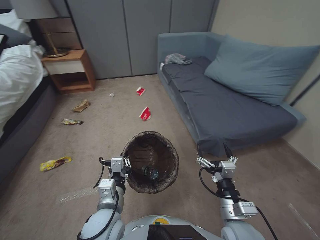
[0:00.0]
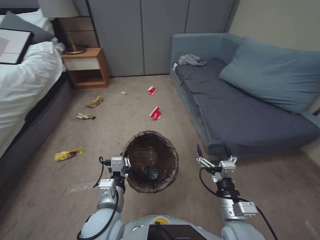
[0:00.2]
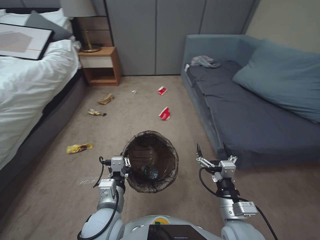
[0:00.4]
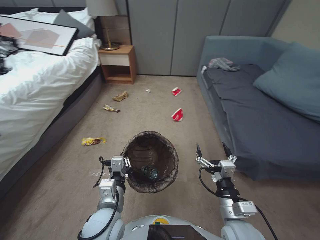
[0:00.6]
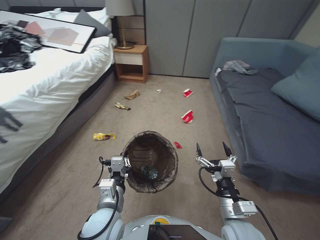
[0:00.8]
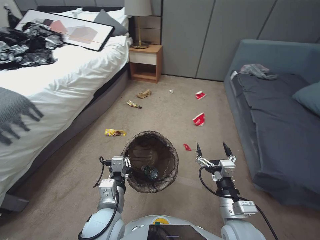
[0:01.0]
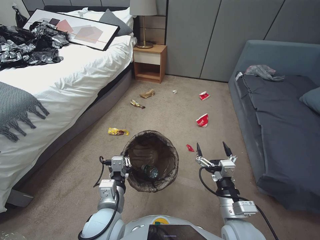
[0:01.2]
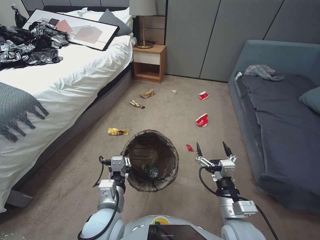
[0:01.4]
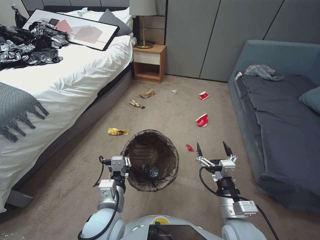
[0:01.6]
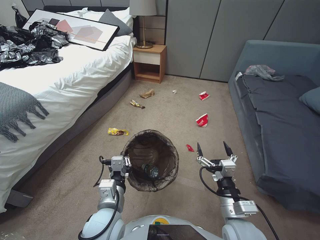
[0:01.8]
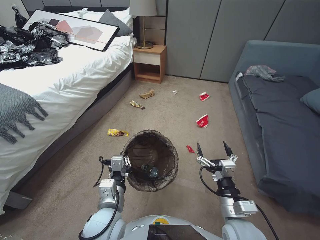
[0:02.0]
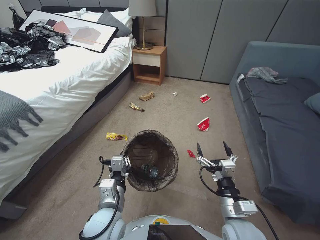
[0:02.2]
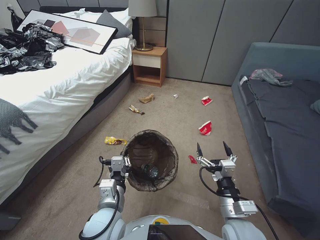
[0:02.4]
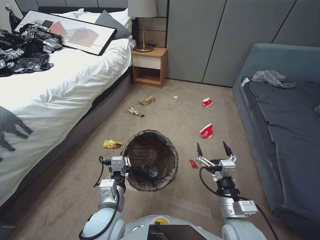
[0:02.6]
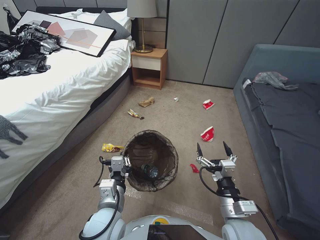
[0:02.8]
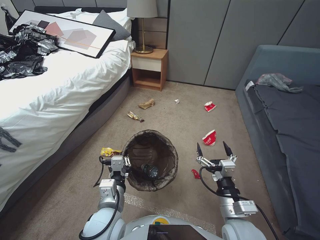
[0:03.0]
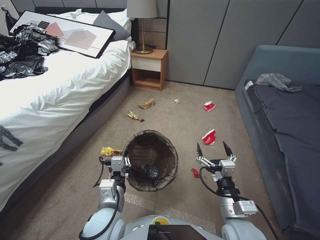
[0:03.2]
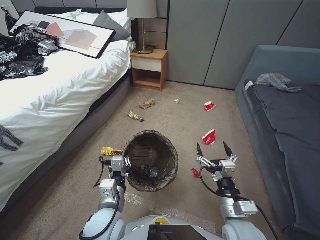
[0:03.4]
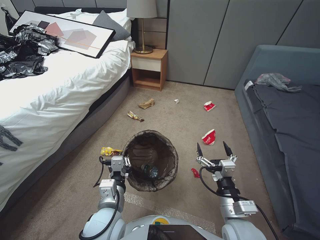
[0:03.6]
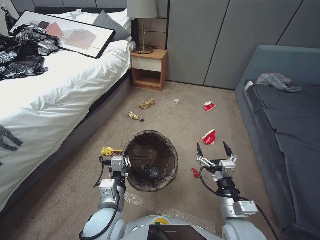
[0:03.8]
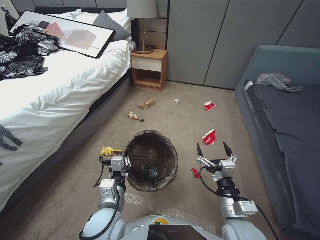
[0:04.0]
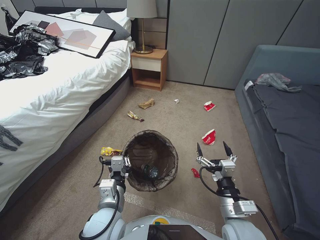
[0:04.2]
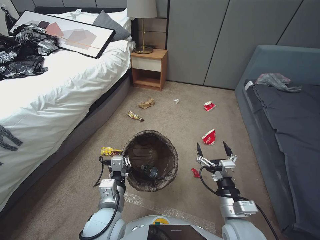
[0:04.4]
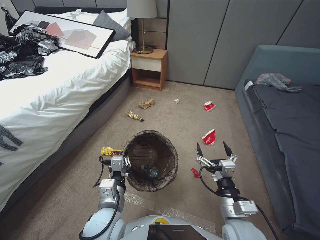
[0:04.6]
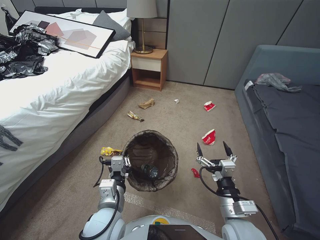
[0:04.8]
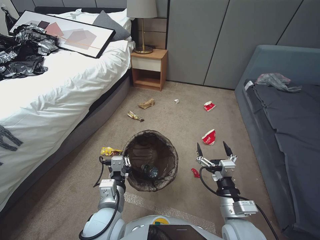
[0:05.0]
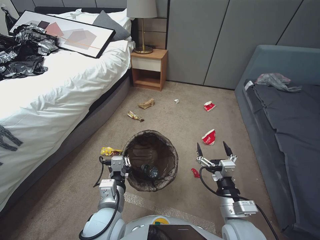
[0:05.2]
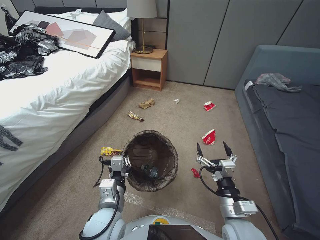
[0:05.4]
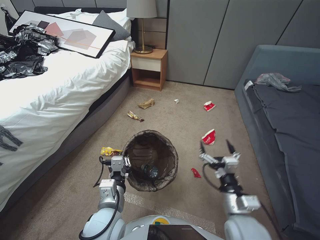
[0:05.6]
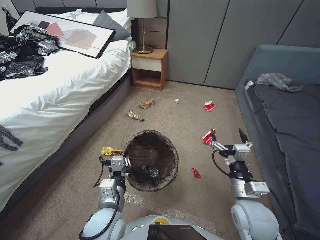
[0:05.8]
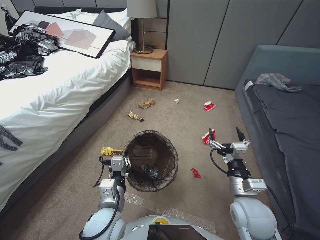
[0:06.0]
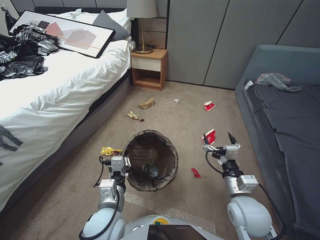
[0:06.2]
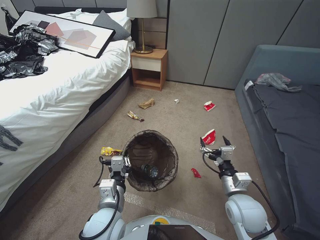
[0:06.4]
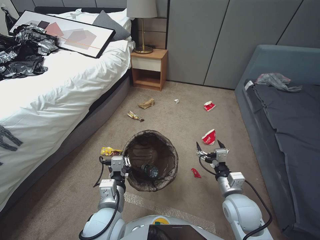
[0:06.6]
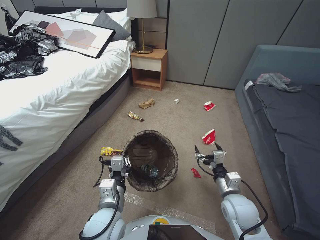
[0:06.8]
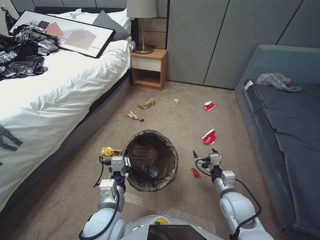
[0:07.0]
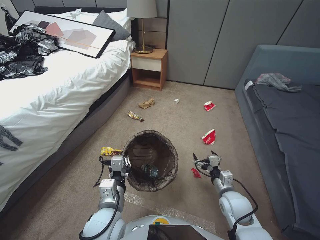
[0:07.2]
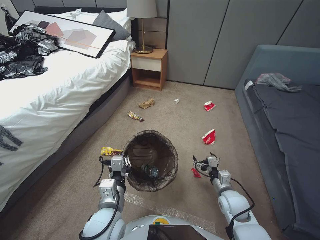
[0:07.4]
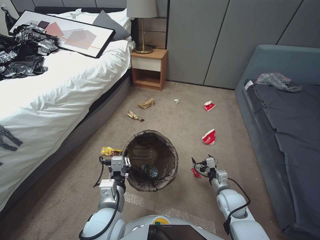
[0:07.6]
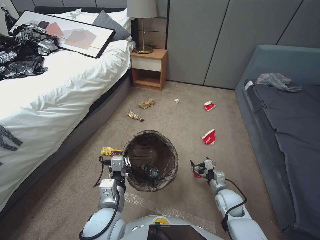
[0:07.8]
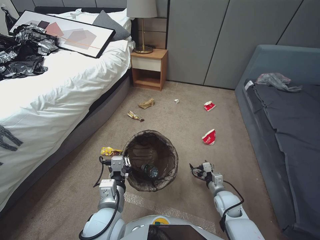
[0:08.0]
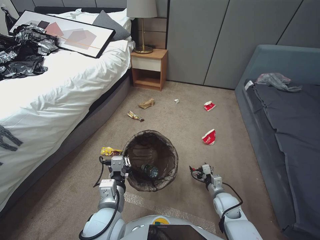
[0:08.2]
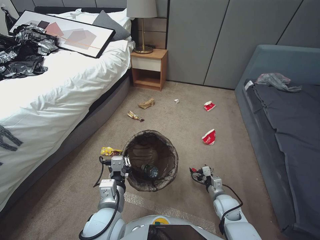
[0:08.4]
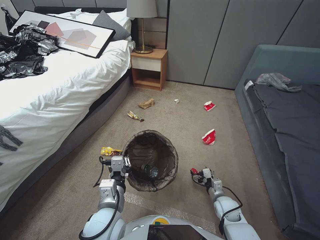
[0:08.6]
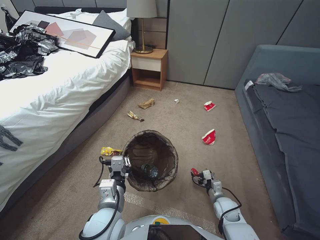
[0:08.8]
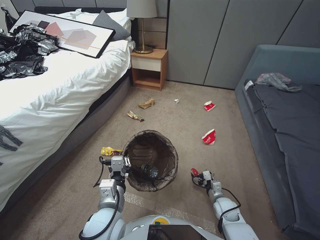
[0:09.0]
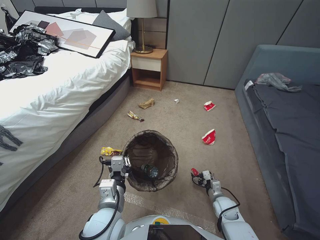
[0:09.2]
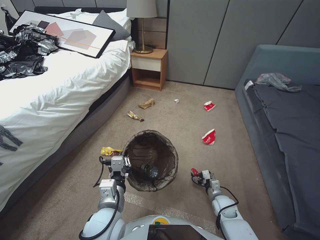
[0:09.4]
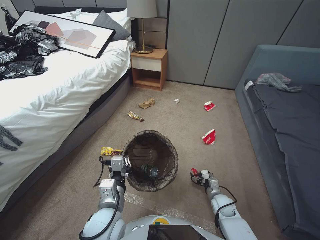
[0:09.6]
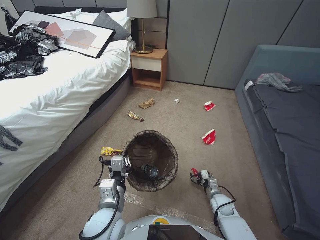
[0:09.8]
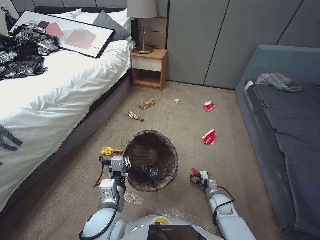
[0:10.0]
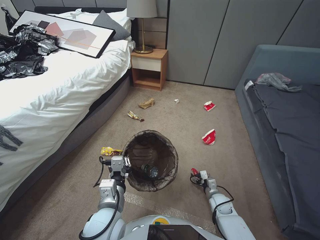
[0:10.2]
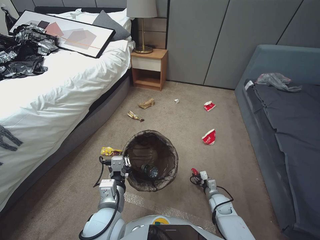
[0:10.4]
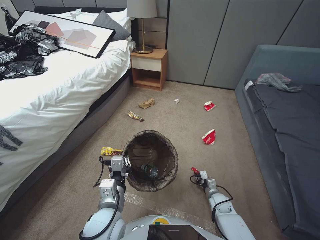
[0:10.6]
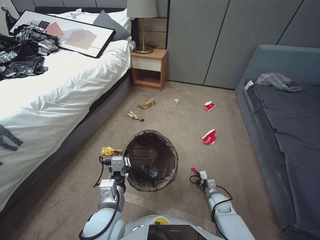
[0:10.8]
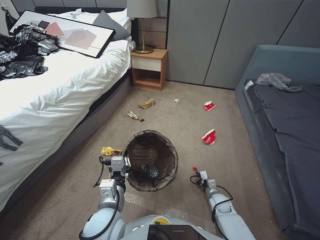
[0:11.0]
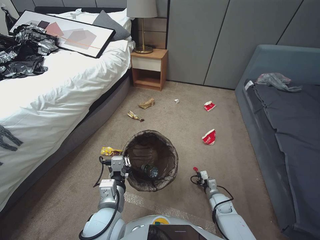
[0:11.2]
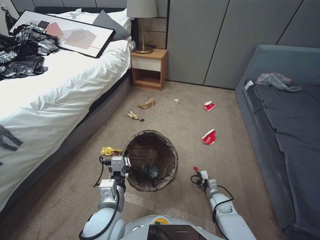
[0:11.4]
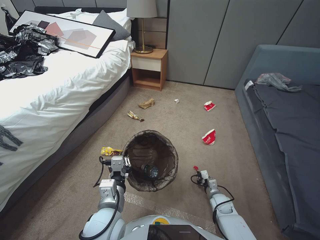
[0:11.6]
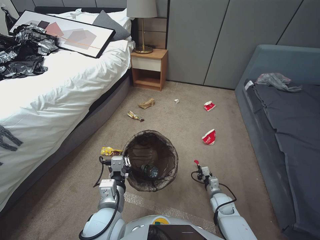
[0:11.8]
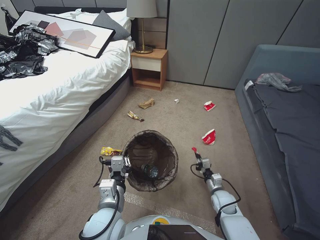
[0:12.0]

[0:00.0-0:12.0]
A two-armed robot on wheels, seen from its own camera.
Task of the whole recording: Pick up the trash bin, then pick up the garbage from the floor and place it into the trash bin.
0:03.0 to 0:04.4: Both grippers stay put.
0:04.4 to 0:06.0: The right gripper changes place by about 5 cm.
0:06.0 to 0:07.6: The right gripper travels downward and forward by roughly 15 cm.
0:07.6 to 0:09.0: The right gripper travels downward by approximately 10 cm.
0:09.0 to 0:10.4: The grippers stay close to where they were, moving slightly.
0:10.4 to 0:12.0: The right gripper closes its fingers.

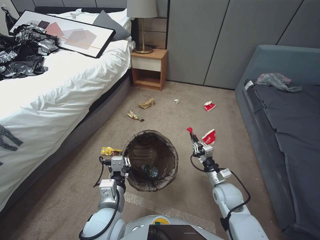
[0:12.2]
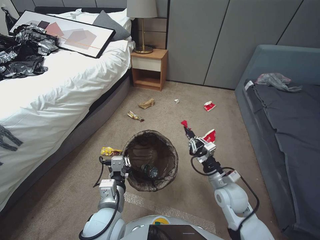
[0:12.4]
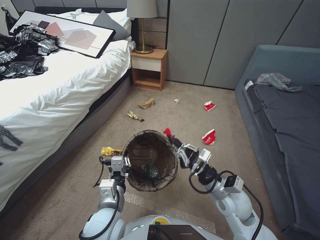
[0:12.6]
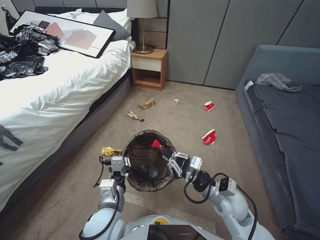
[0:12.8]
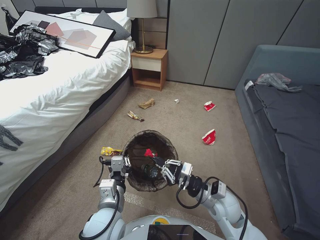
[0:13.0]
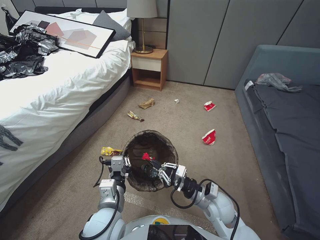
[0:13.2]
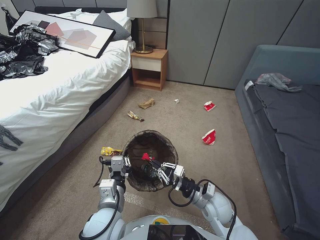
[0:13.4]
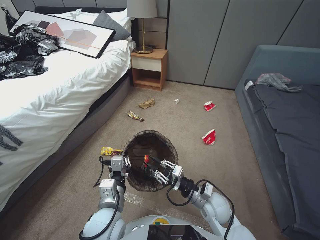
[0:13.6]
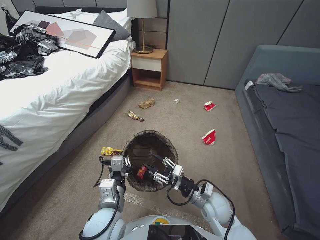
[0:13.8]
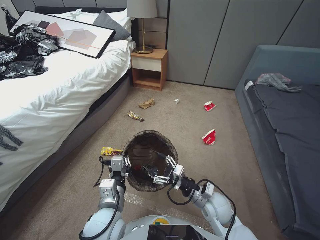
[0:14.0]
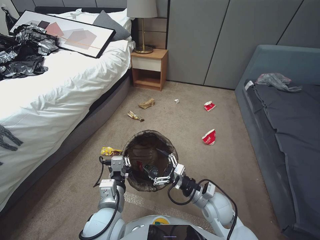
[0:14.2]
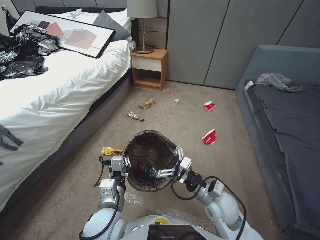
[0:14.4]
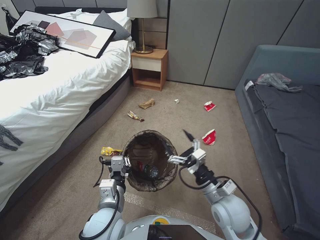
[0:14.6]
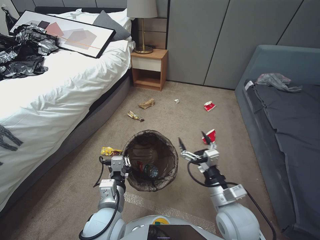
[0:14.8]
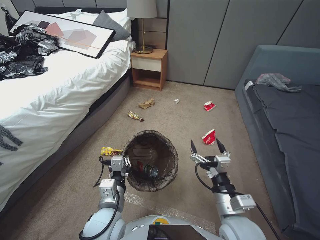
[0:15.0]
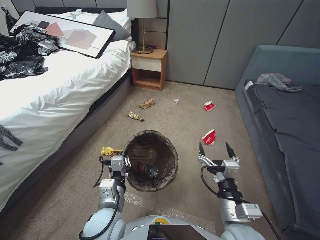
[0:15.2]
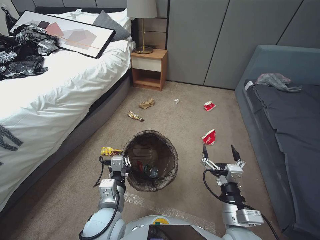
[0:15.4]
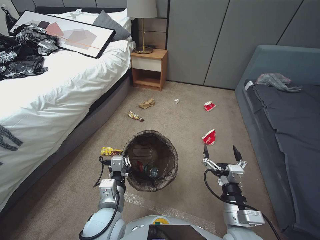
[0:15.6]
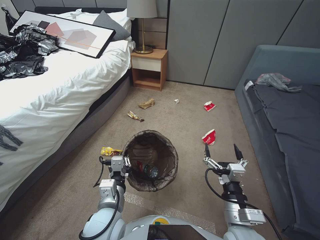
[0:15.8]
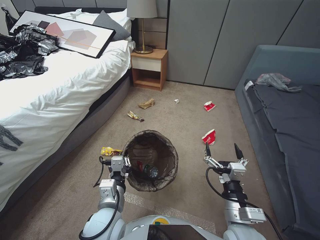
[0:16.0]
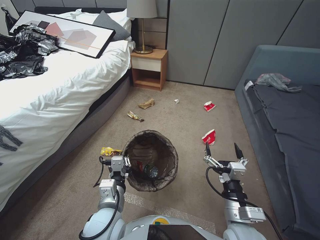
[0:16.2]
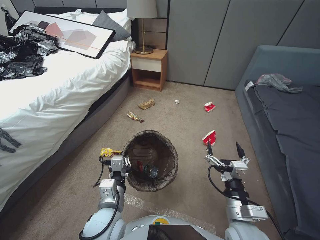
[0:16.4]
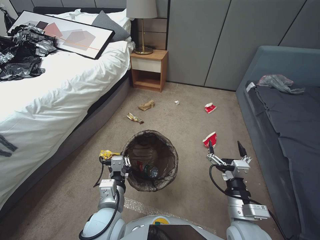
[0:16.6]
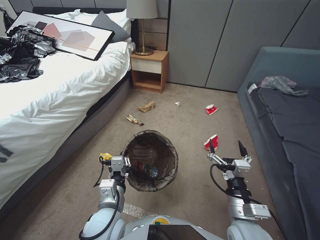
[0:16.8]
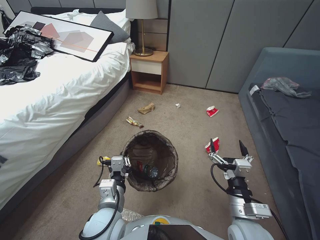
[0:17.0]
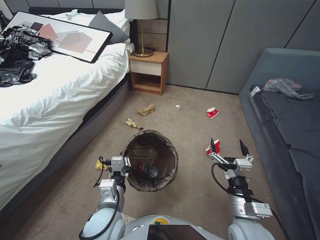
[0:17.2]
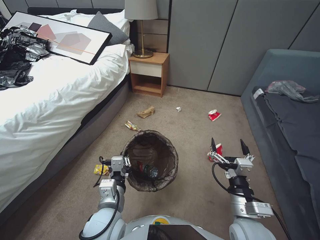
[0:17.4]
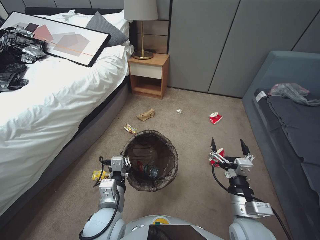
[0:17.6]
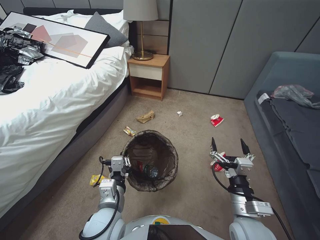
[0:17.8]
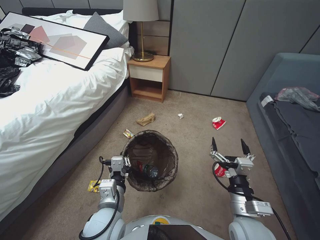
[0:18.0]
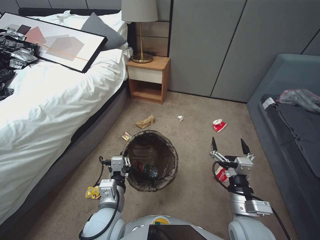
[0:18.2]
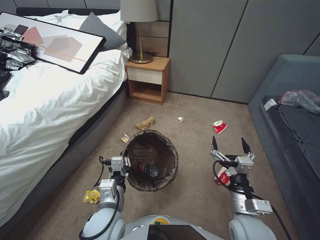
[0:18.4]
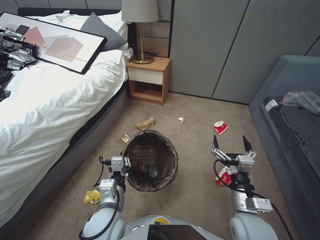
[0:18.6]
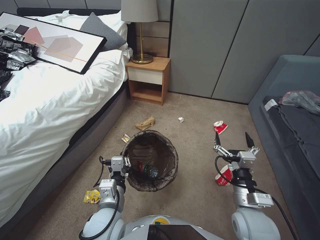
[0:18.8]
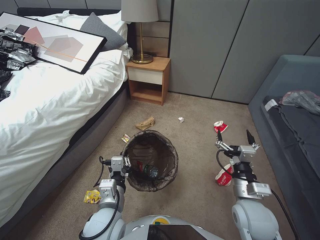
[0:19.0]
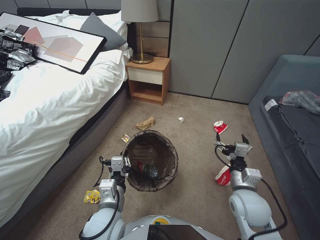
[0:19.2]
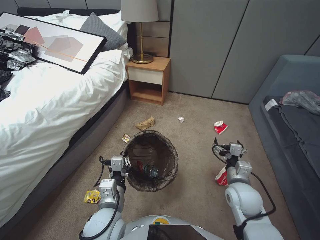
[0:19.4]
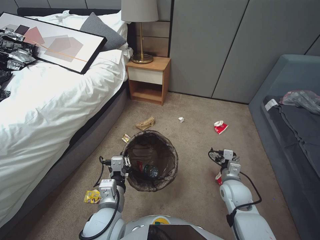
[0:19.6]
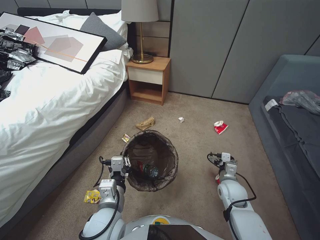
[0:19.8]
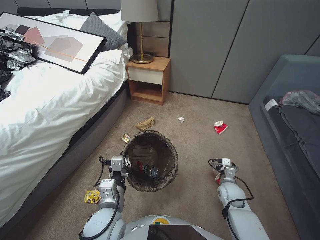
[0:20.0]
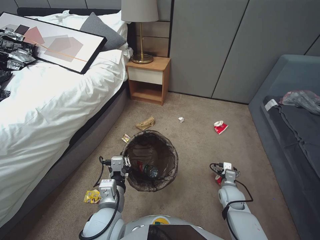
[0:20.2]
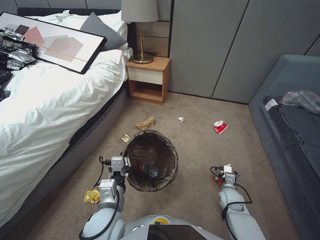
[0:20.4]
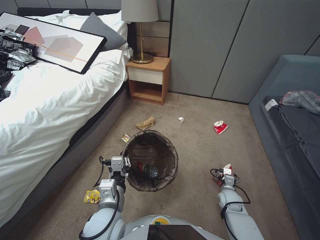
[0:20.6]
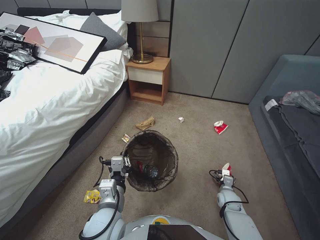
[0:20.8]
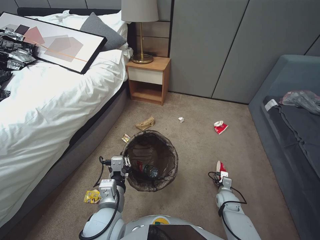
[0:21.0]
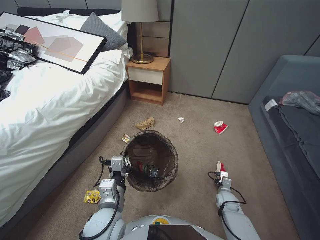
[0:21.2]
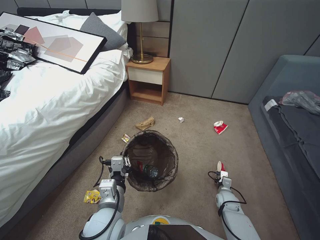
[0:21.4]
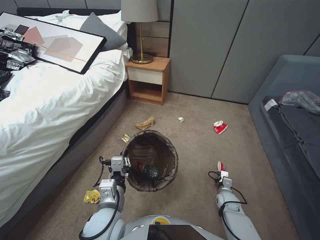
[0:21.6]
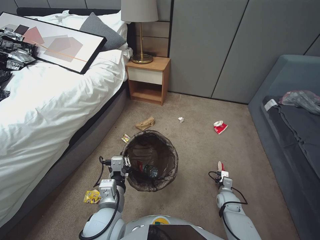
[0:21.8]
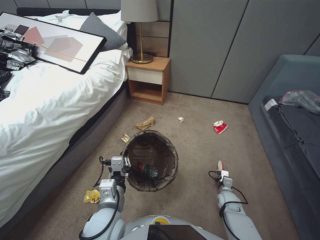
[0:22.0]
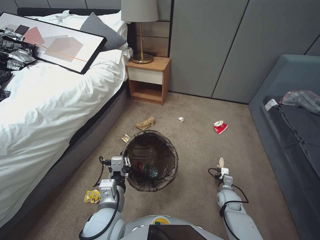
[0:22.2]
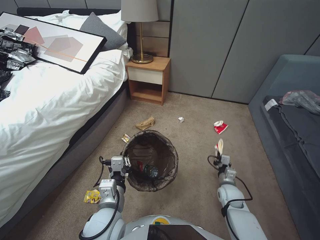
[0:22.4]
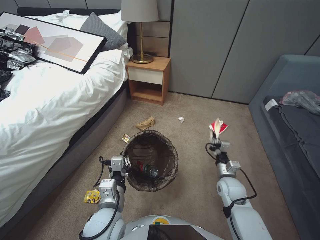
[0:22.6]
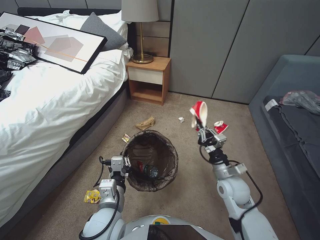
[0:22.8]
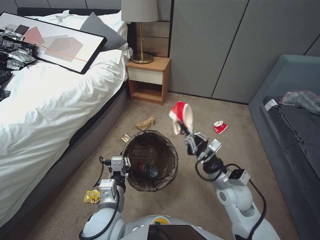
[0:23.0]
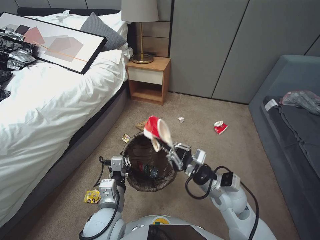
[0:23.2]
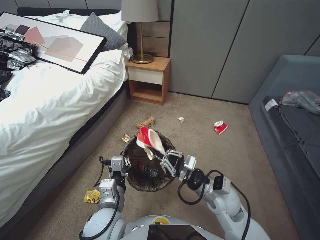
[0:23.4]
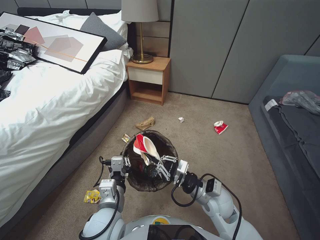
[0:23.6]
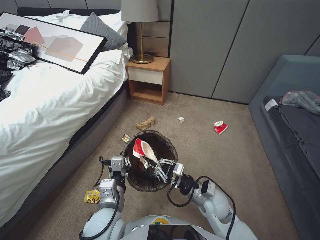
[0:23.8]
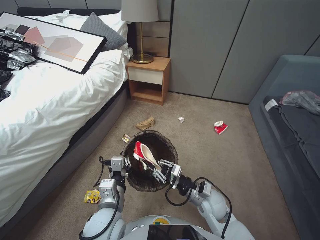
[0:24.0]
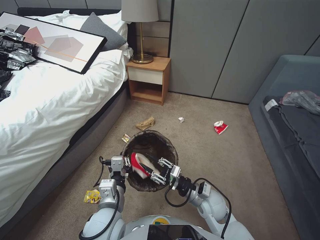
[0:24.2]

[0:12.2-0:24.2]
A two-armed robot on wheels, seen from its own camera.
Task of the whole recording: Pick up the trash bin, then pick up the garbage from the floor and place it into the trash bin.
0:12.2 to 0:13.8: The right gripper travels to the left and upward by about 10 cm, and opens its fingers.
0:13.8 to 0:15.2: The right gripper is displaced upward and backward by about 15 cm, and opens.
0:15.2 to 0:16.6: The grippers make only small movements.
0:18.2 to 0:19.8: The right gripper shifts approximately 15 cm forward, downward and to the right.
0:19.8 to 0:21.2: The right gripper is displaced downward by roughly 20 cm, and closes.
0:21.2 to 0:22.6: The right gripper is displaced upward by some 10 cm, and closes.
0:22.6 to 0:24.2: The right gripper heads to the left and backward, covering roughly 15 cm, and moves roughly 15 cm upward and comes back.
